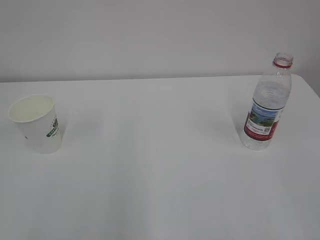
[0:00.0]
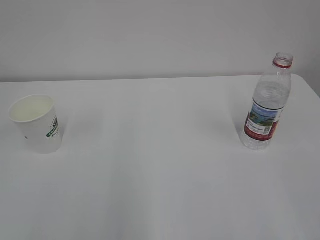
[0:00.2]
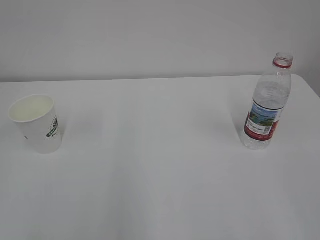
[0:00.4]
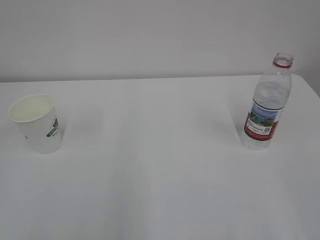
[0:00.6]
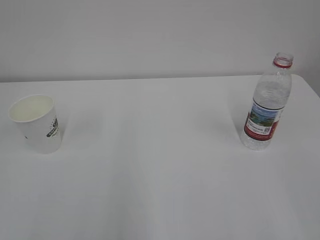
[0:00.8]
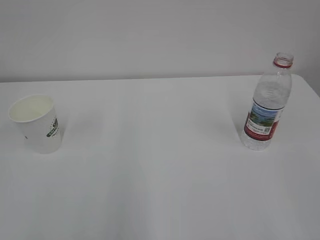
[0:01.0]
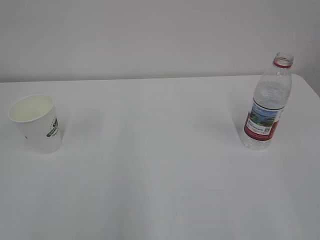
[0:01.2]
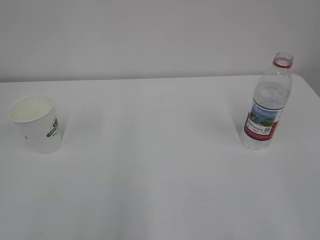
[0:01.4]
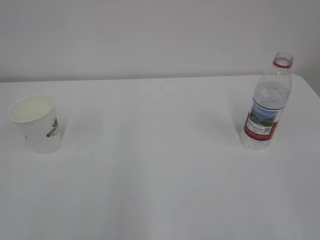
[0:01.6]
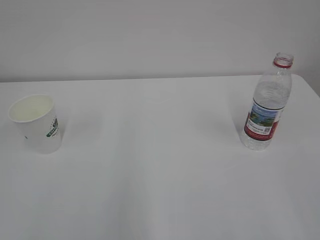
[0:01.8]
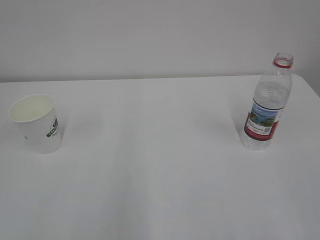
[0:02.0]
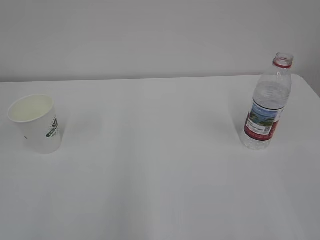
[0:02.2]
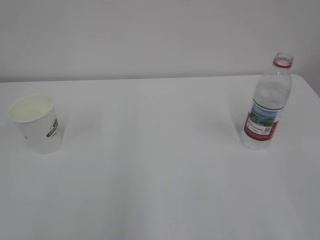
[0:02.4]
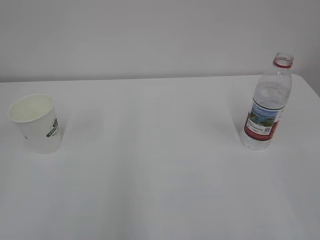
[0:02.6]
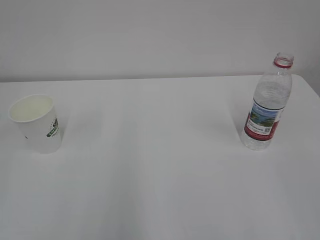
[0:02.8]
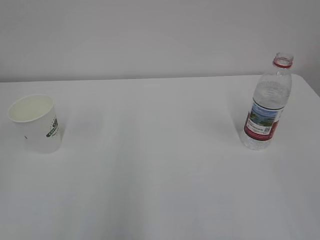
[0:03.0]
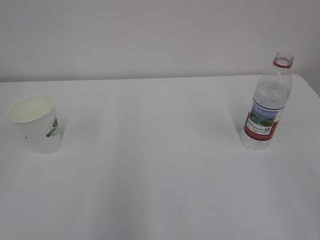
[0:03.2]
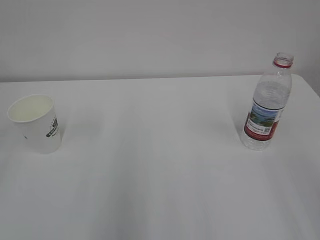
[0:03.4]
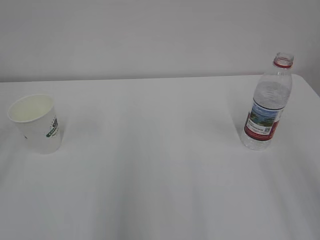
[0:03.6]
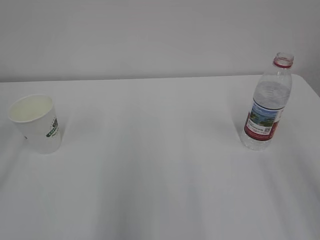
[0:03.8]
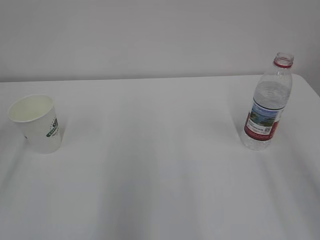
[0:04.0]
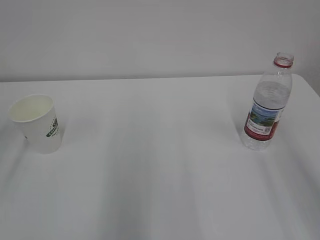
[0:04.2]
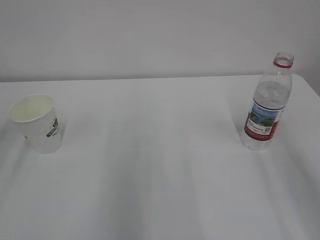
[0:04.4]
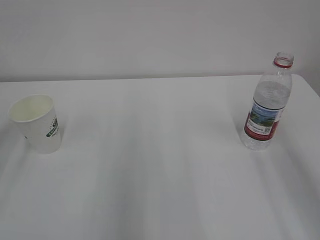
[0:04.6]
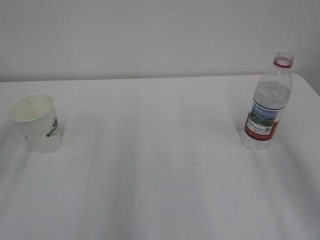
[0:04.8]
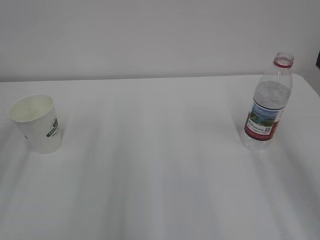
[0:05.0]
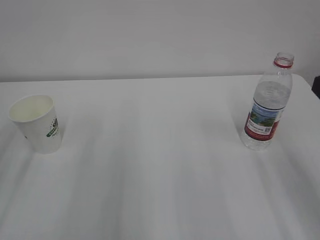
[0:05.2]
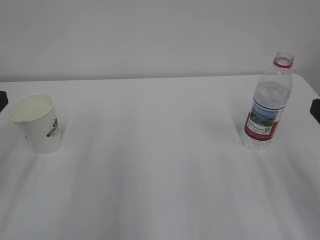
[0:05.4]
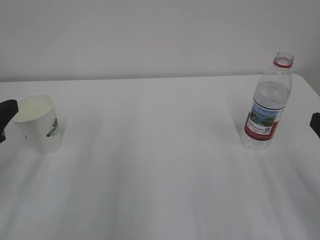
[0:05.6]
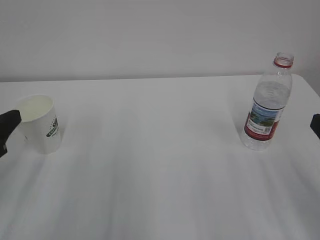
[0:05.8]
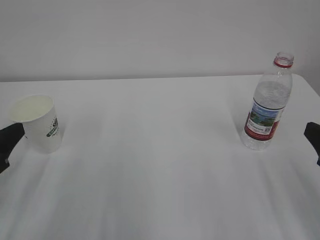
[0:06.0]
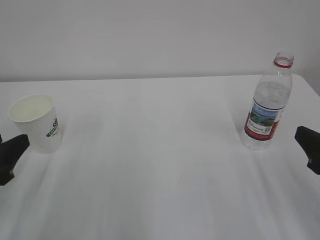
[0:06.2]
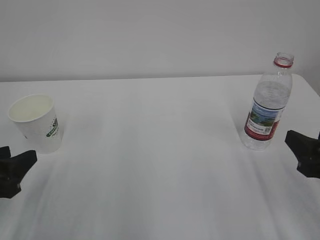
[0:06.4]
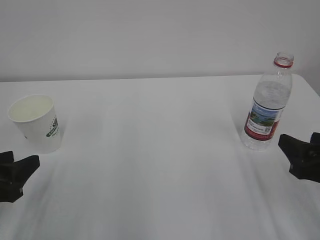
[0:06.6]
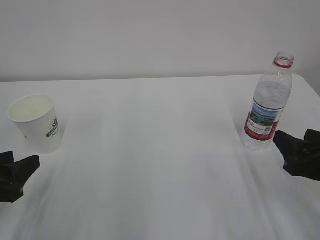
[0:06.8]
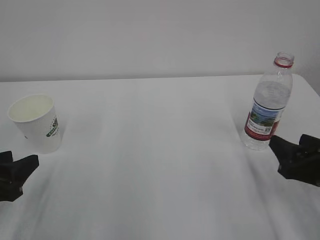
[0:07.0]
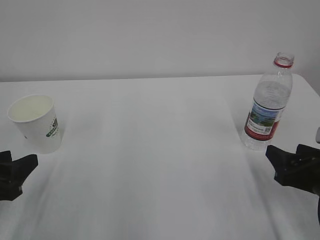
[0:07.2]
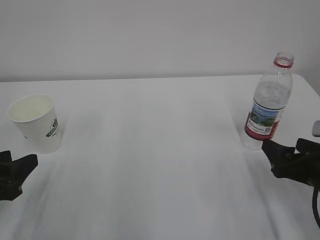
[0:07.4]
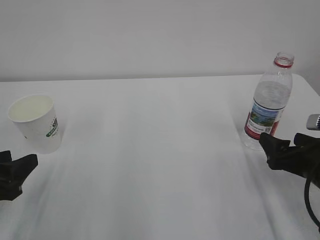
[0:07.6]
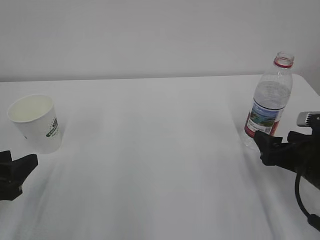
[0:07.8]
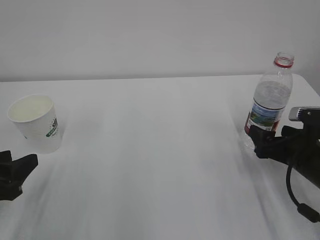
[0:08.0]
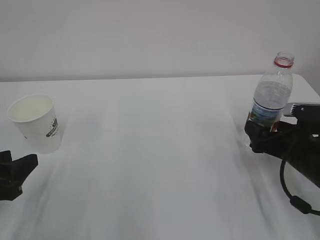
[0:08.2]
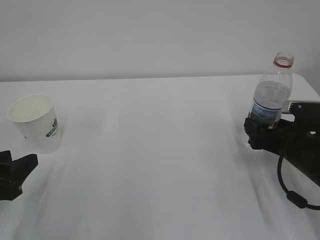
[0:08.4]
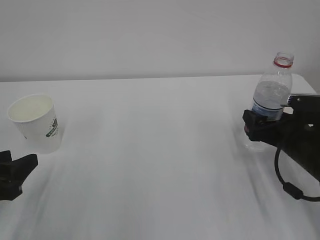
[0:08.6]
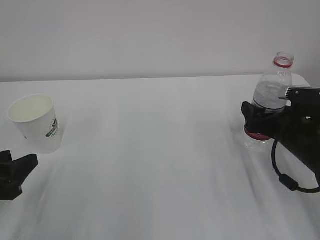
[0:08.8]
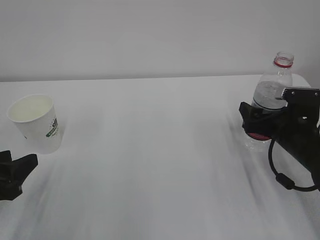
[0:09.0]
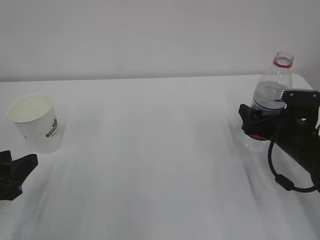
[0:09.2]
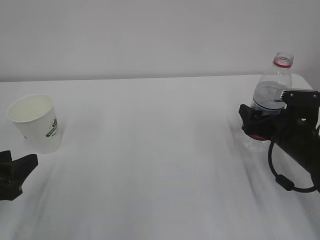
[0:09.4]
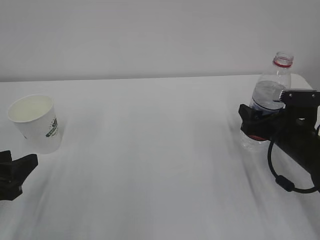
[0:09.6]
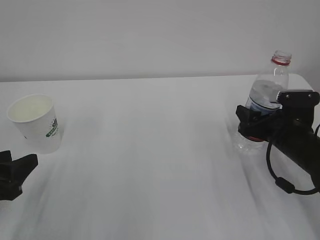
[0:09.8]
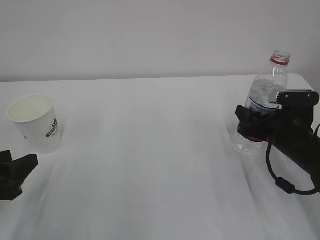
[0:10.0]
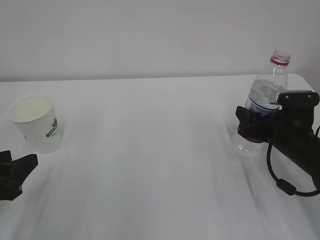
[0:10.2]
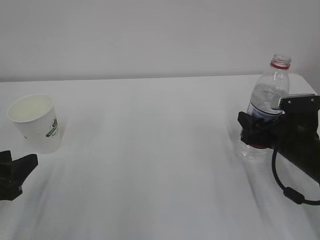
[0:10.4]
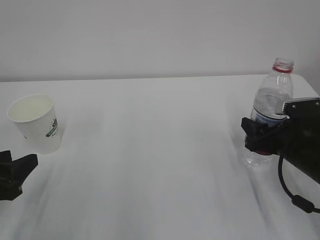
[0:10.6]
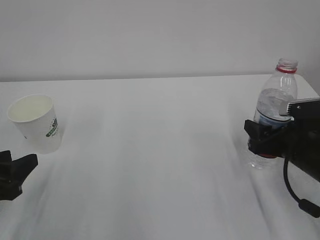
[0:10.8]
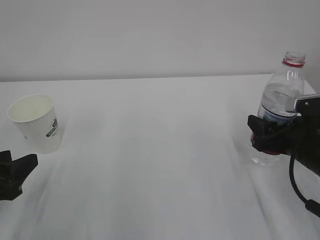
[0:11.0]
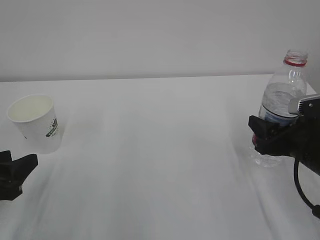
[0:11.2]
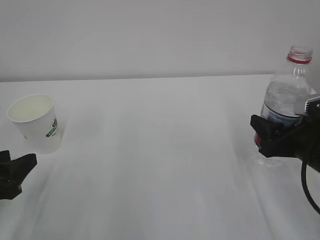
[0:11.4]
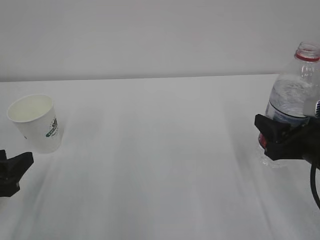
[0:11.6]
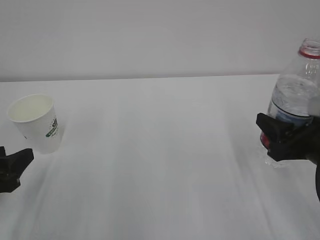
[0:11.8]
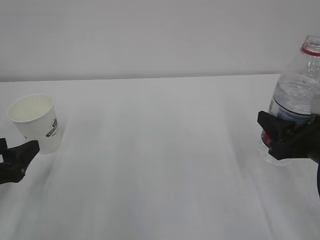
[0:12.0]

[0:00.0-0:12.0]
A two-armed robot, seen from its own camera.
0:04.4 to 0:06.0: The left gripper is displaced downward by about 15 cm.
0:06.0 to 0:07.6: The right gripper heads downward and forward, covering some 10 cm, and opens its fingers.
0:07.6 to 0:09.0: The right gripper is displaced forward by some 10 cm.
0:09.0 to 0:10.4: The right gripper closes.
0:10.4 to 0:12.0: The left gripper opens its fingers. Meanwhile the right gripper shifts some 10 cm backward and upward.

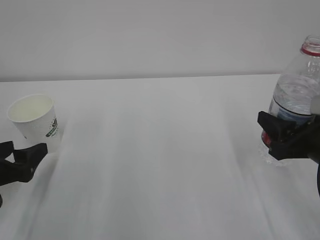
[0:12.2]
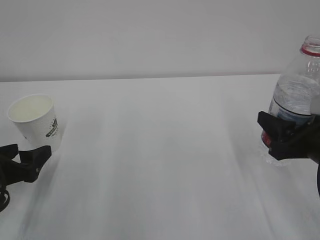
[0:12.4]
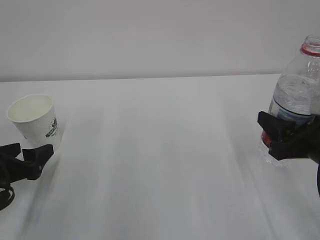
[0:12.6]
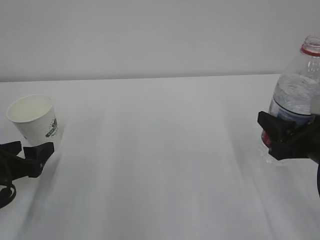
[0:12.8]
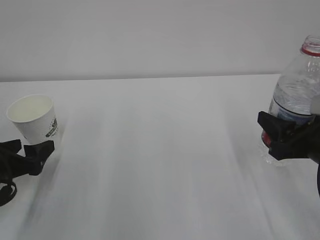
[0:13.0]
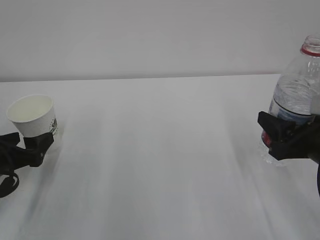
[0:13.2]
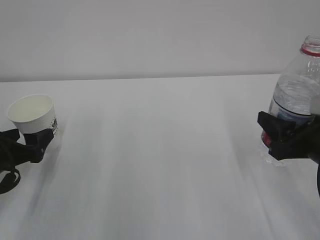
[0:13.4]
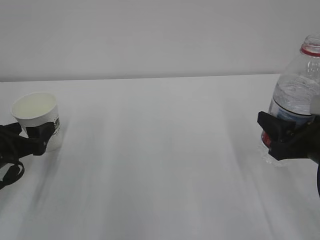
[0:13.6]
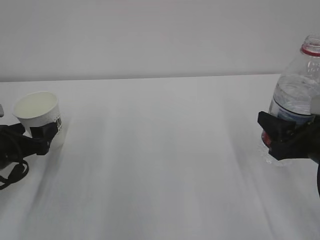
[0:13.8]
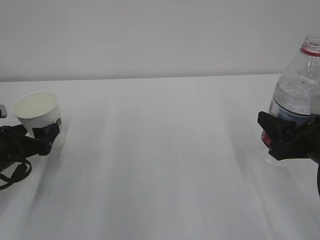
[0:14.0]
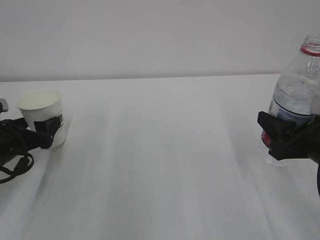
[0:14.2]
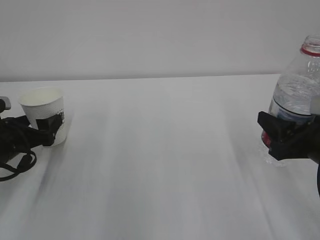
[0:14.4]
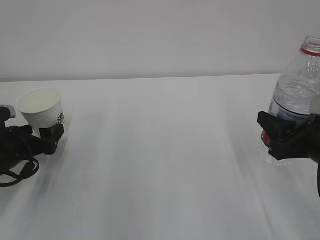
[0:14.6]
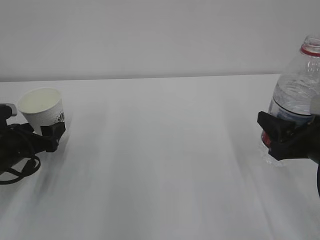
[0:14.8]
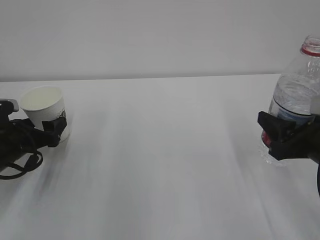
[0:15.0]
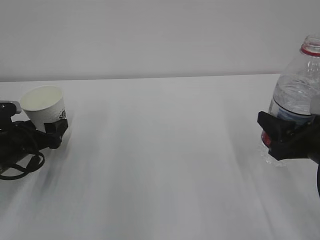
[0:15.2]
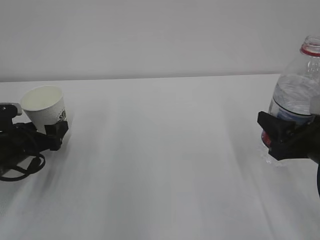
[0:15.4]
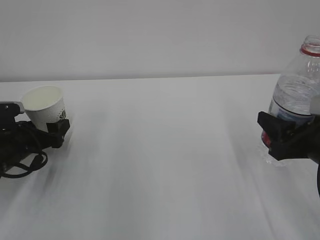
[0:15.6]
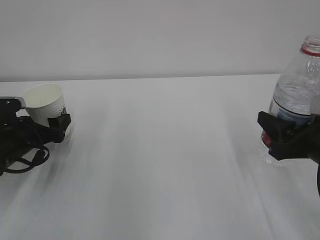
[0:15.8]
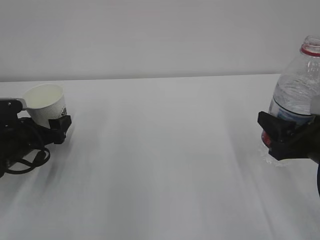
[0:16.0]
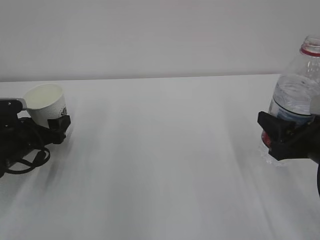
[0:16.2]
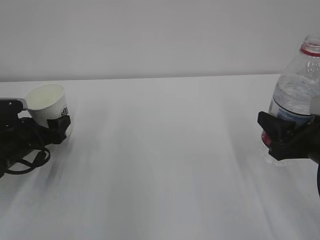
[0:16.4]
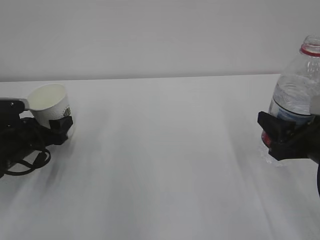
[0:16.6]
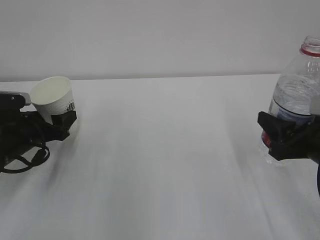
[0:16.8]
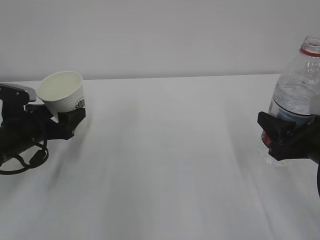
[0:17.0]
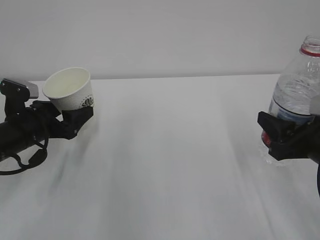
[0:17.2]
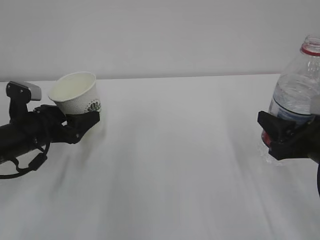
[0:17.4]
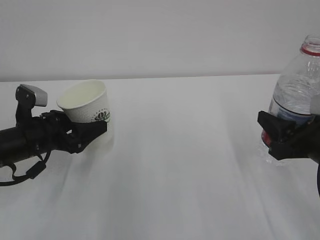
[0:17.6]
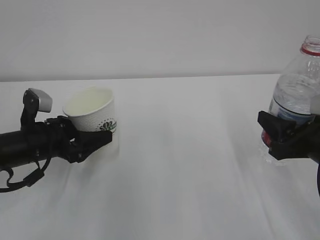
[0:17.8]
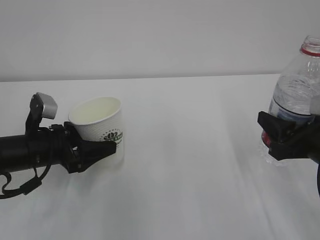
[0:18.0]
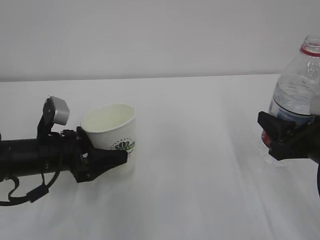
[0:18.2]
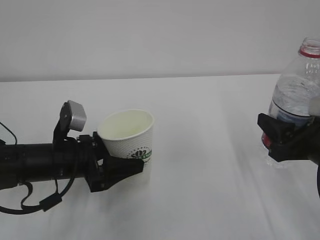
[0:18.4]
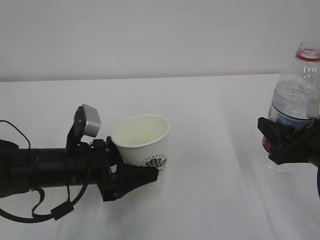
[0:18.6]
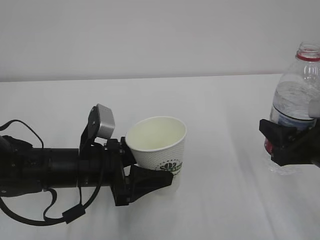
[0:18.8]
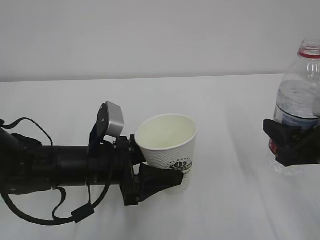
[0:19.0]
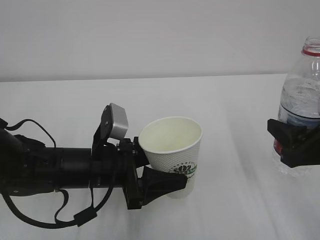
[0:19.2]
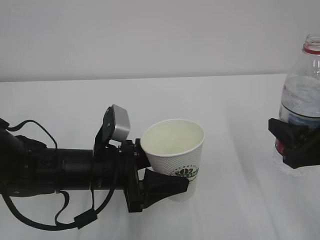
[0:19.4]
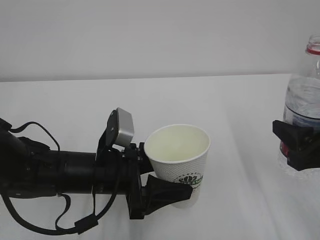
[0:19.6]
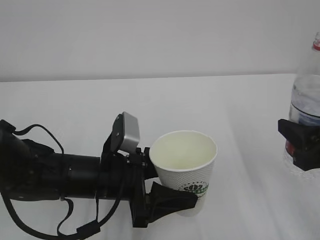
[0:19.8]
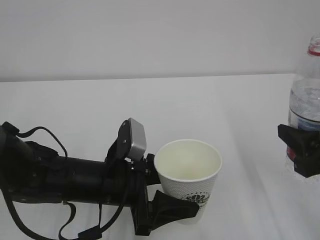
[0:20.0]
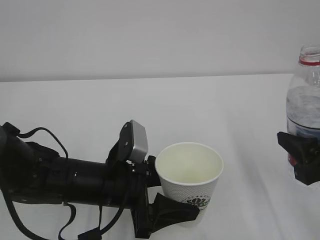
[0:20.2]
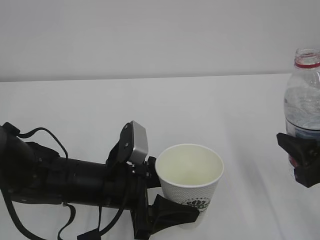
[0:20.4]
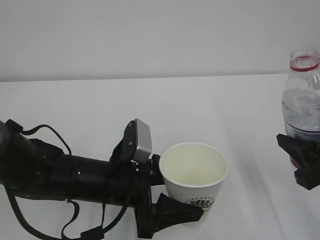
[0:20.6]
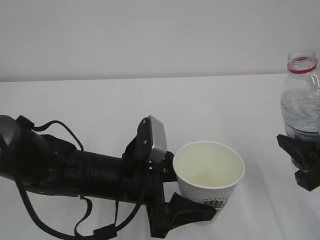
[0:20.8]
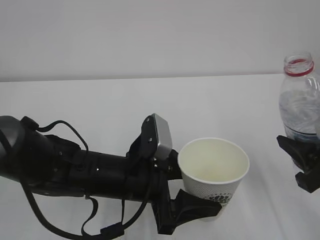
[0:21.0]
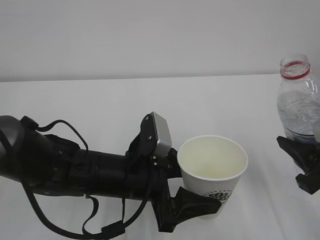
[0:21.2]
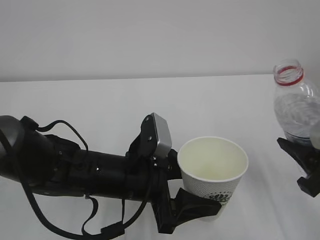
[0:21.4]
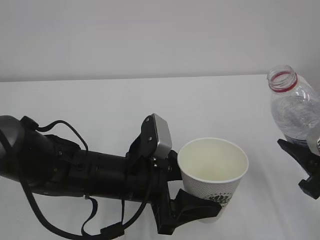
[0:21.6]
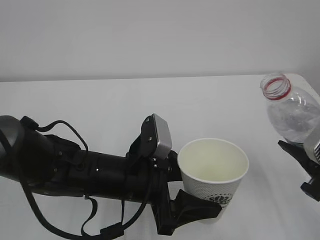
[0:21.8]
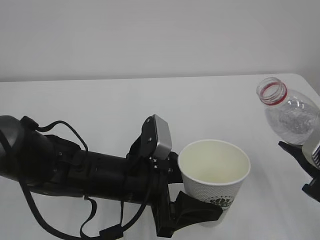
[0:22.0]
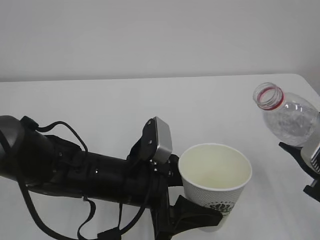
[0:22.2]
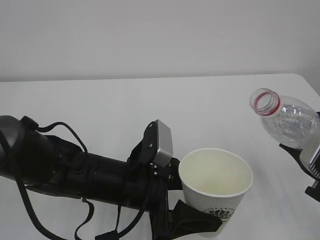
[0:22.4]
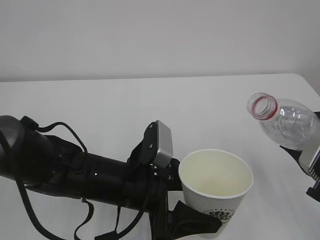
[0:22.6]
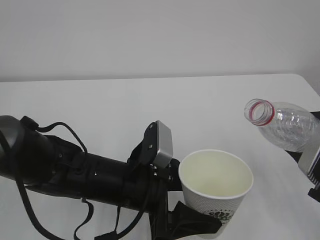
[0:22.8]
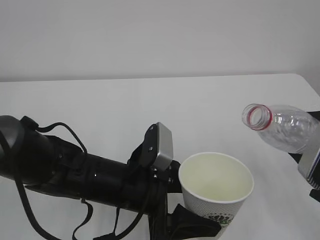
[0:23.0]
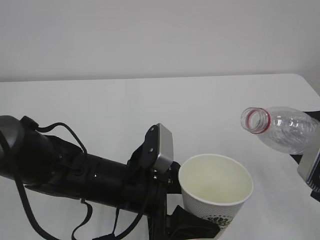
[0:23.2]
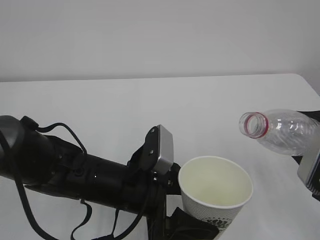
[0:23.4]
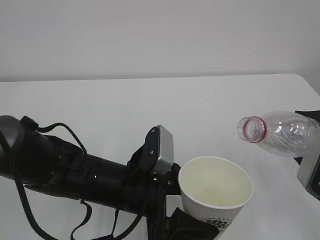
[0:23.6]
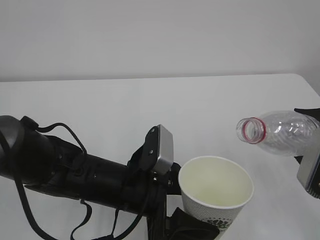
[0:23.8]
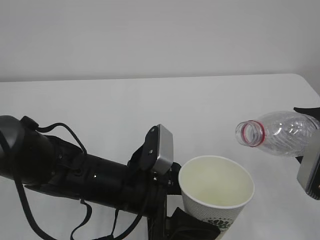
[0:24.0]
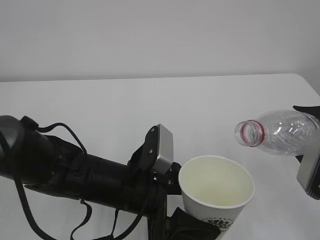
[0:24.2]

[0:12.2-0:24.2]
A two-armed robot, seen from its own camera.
0:12.2 to 0:13.8: The left gripper heads forward, covering about 5 cm.
0:13.8 to 0:15.2: There are only small adjustments of the grippers.
0:15.2 to 0:16.6: The left gripper closes its fingers.
0:16.6 to 0:18.2: The left gripper is displaced to the right by some 10 cm.
0:18.2 to 0:19.8: The right gripper ends up about 5 cm from where it was; the left gripper goes approximately 10 cm to the right and backward.
0:19.8 to 0:21.2: The grippers stay close to where they were, moving slightly.
0:22.6 to 0:24.2: The grippers move only a little.
